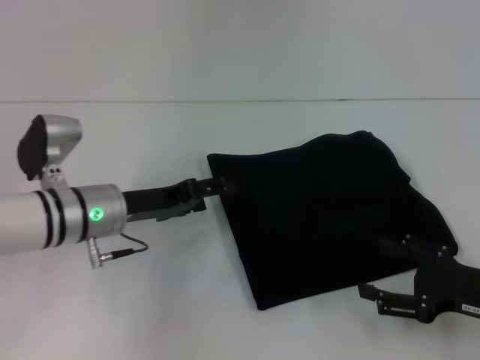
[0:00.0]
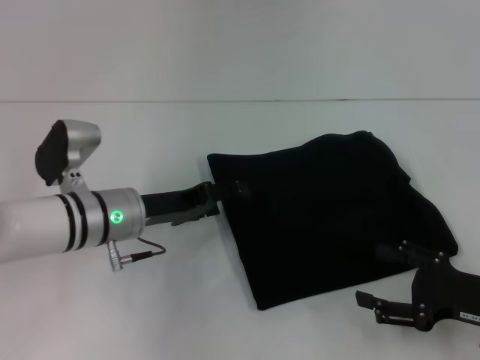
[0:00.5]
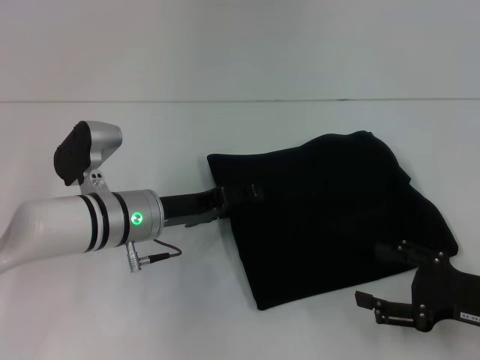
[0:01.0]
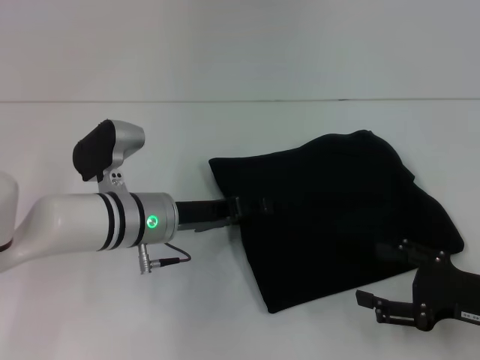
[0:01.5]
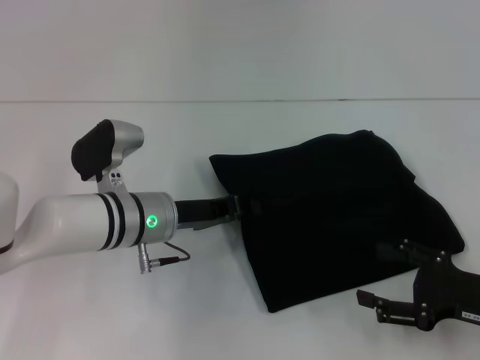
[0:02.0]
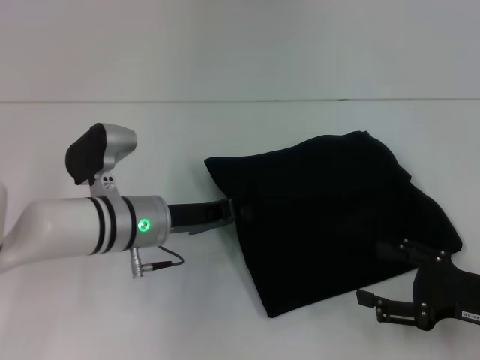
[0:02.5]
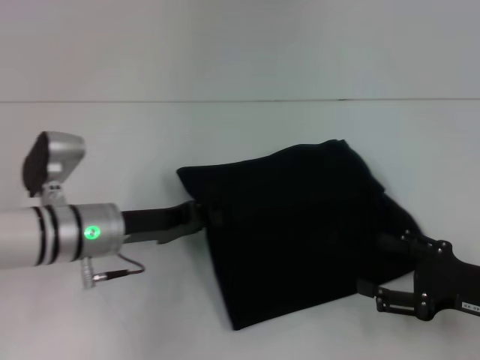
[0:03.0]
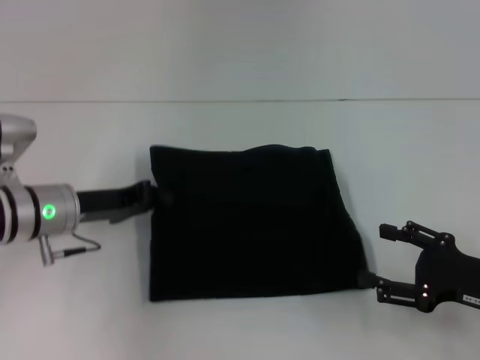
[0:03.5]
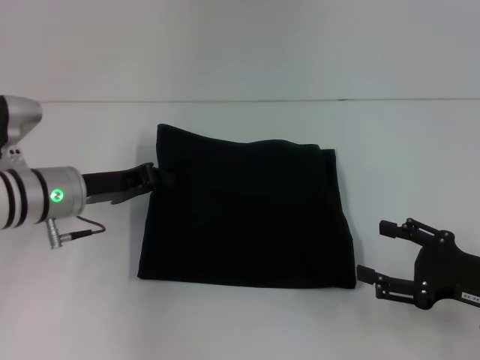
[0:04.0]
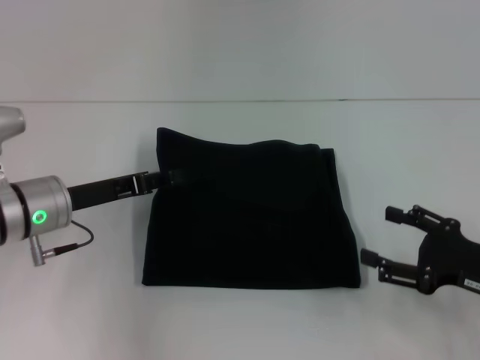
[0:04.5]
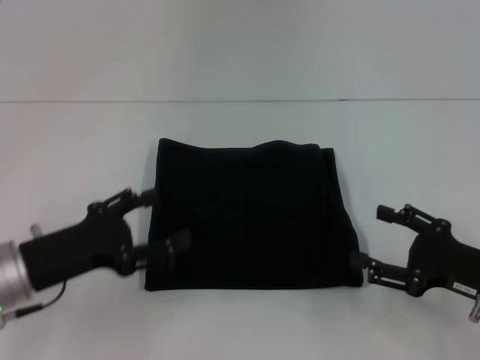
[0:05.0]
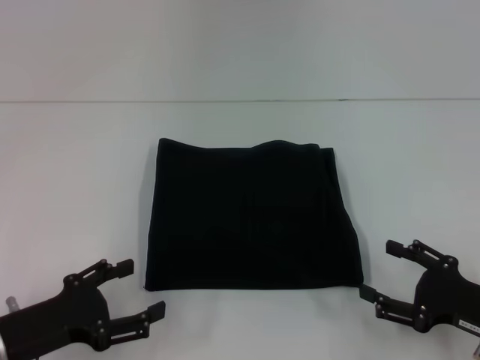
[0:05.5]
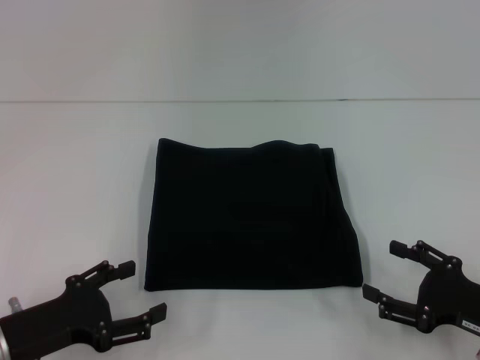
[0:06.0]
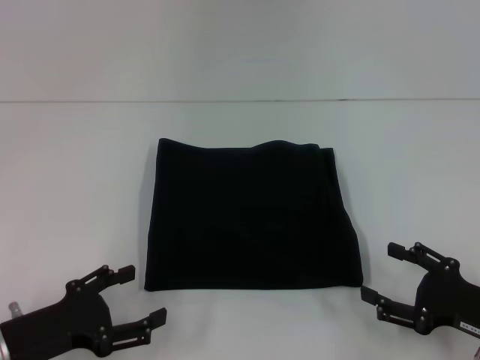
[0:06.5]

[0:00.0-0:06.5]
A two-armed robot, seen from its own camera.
0:00.0 to 0:02.0: The left gripper heads to the right, covering approximately 5 cm, and closes its fingers.
0:02.0 to 0:04.5: The left gripper shifts approximately 10 cm to the left.
0:04.5 to 0:06.5: The left gripper goes some 15 cm backward, and opens its fingers.
